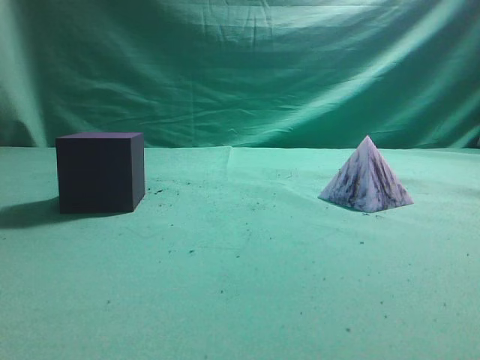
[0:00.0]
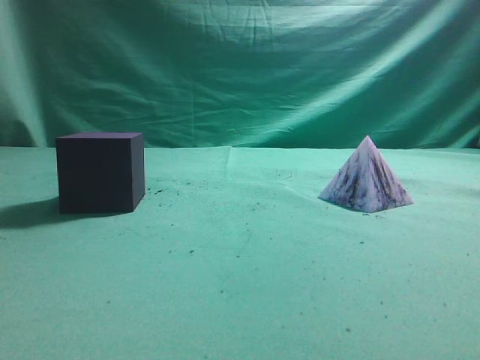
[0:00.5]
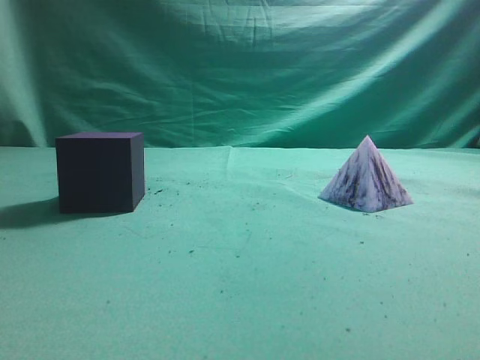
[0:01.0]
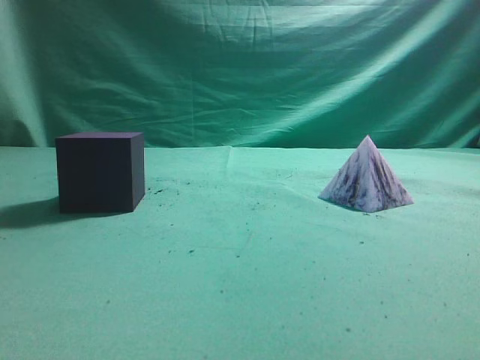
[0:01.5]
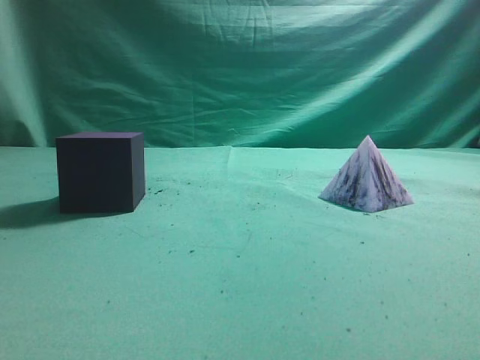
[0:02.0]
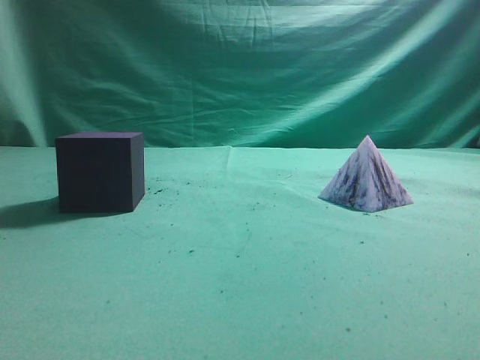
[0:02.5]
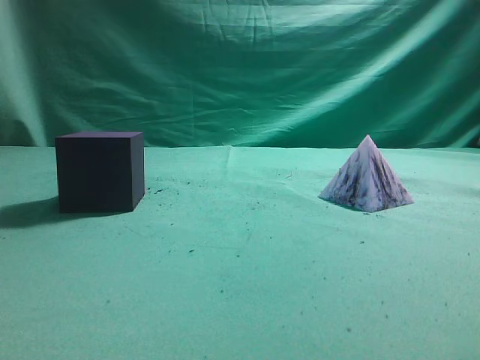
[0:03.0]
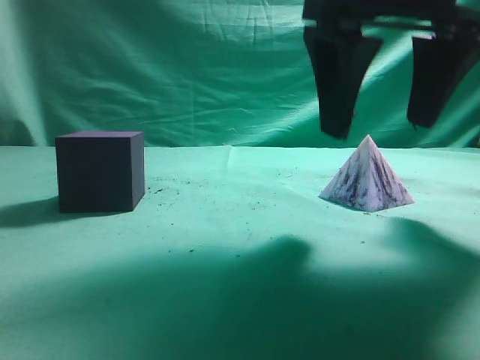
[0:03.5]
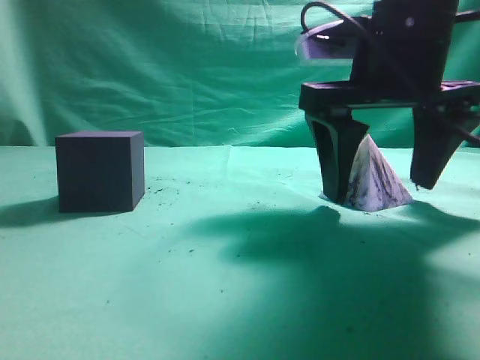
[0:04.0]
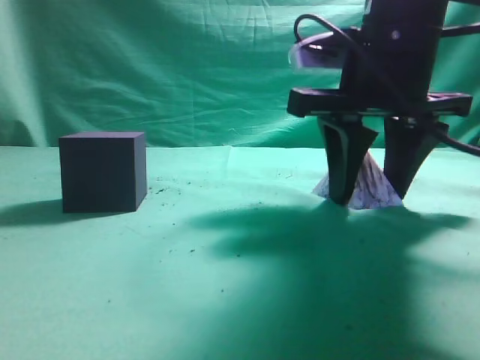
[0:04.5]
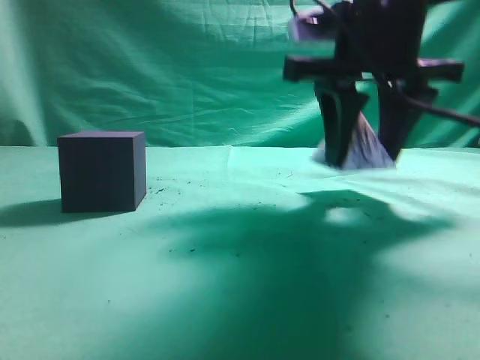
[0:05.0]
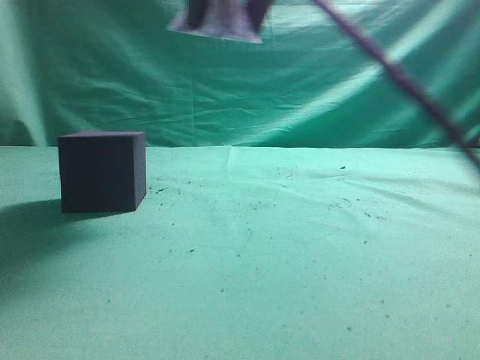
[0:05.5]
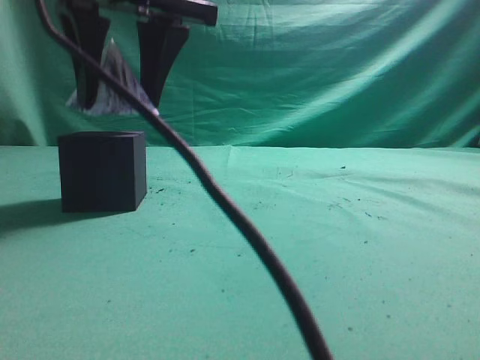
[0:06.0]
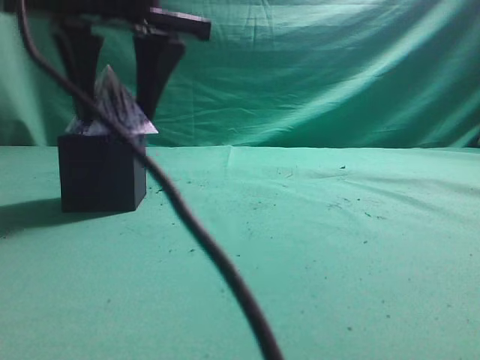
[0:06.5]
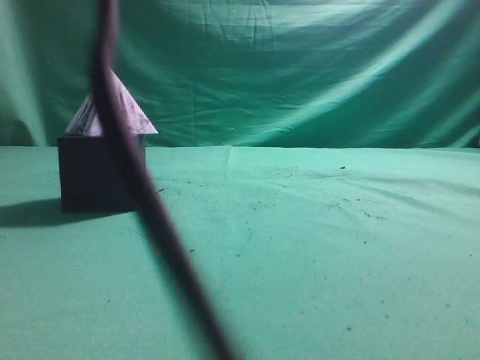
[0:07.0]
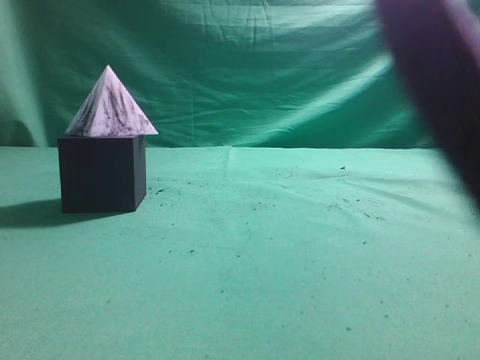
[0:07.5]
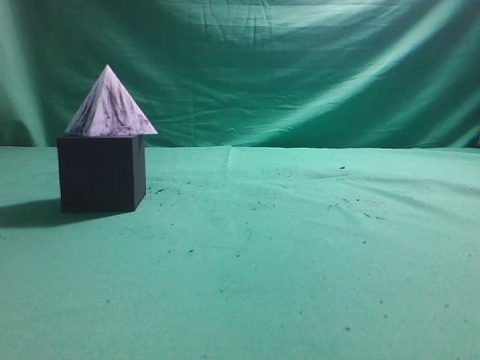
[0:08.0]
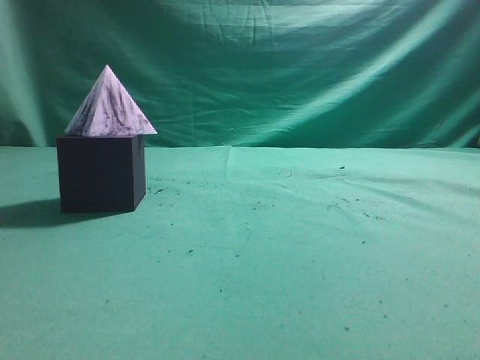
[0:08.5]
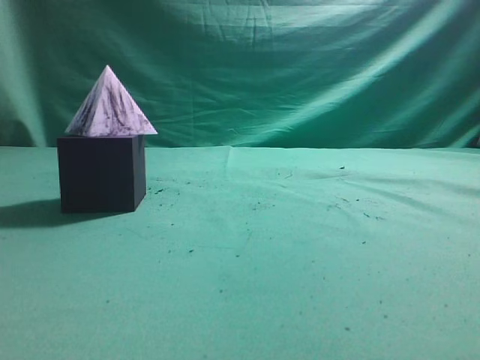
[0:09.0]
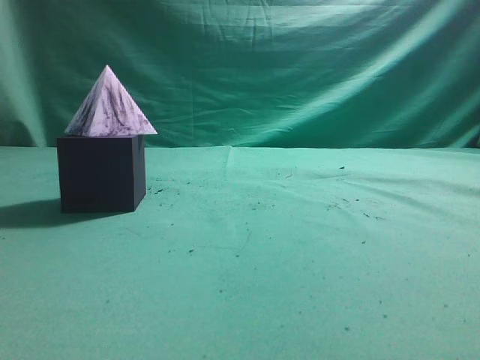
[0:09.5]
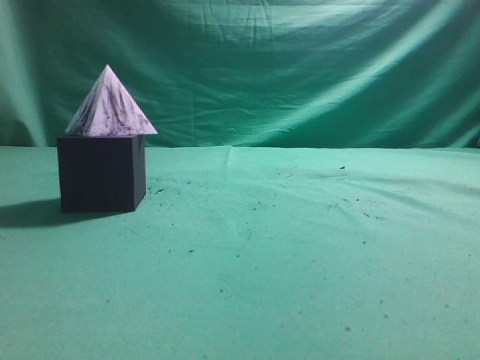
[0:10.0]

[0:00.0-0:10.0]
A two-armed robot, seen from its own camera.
Task of the whole recording: pick up the square pyramid from the table and place it on the cube block.
Step, 0:00.0 to 0:05.0: Grasp the triangular block.
Step, 0:05.5 to 0:06.5: Place the block onto the cube-shaped block.
0:02.0 to 0:04.0: The right gripper heads forward, to the left and downward, covering some 35 cm, and opens its fingers.
0:04.0 to 0:06.0: The right gripper travels to the left and upward by roughly 20 cm, and closes.
0:06.0 to 0:08.0: The right gripper is displaced to the right, upward and backward by approximately 35 cm, and closes its fingers.
